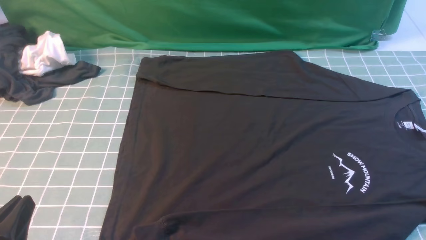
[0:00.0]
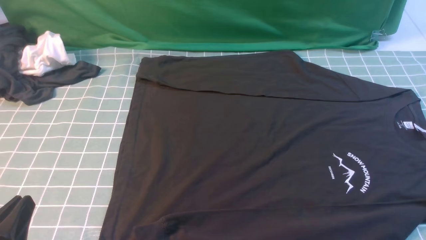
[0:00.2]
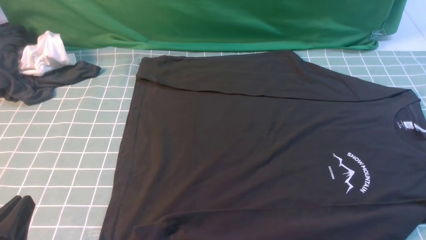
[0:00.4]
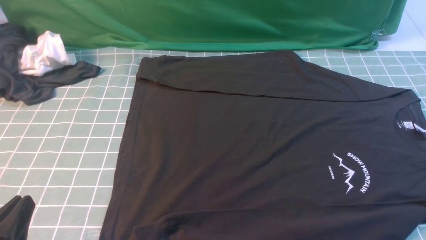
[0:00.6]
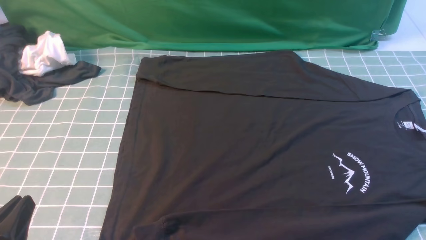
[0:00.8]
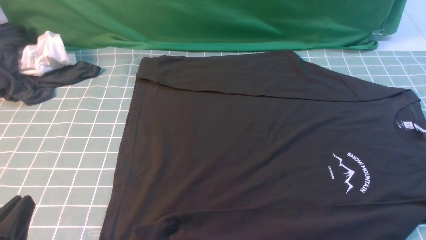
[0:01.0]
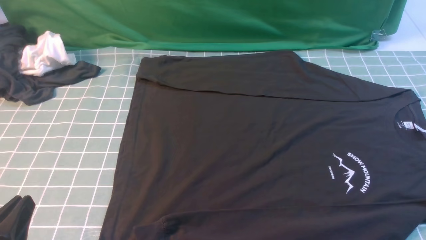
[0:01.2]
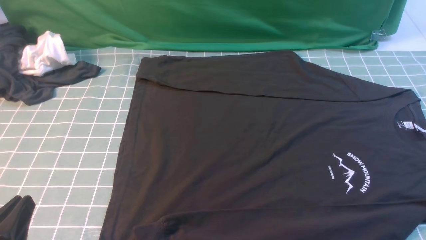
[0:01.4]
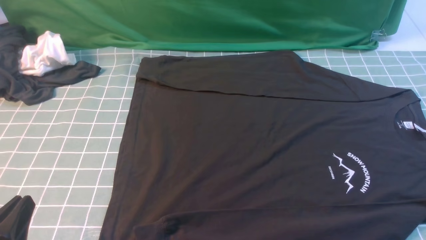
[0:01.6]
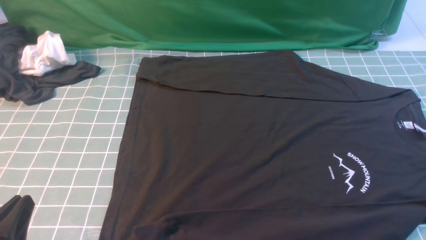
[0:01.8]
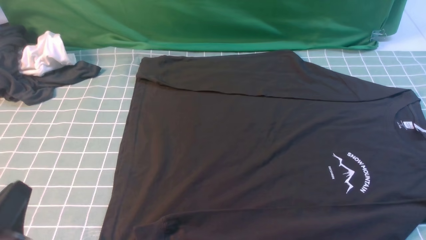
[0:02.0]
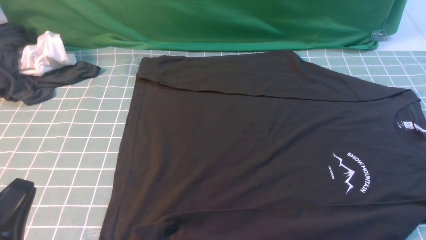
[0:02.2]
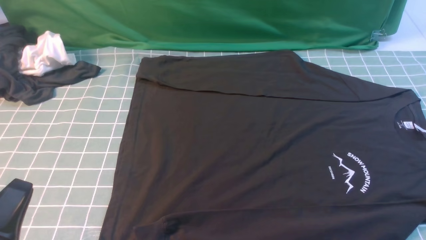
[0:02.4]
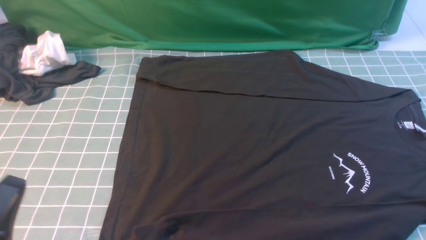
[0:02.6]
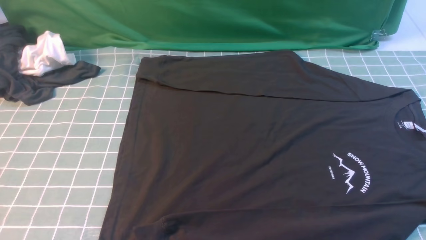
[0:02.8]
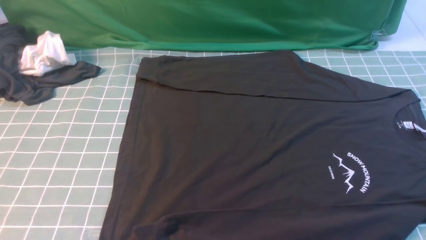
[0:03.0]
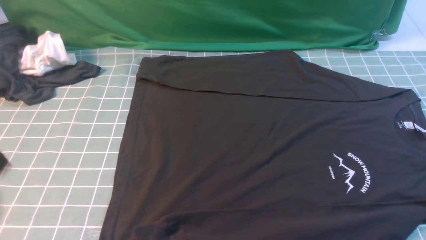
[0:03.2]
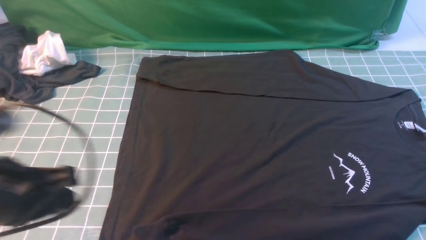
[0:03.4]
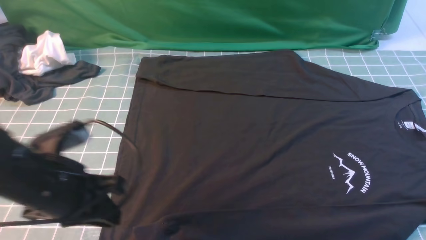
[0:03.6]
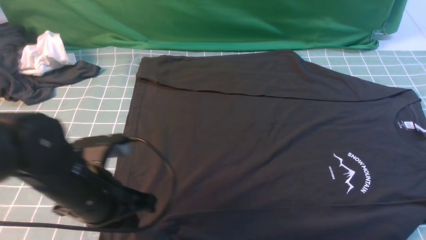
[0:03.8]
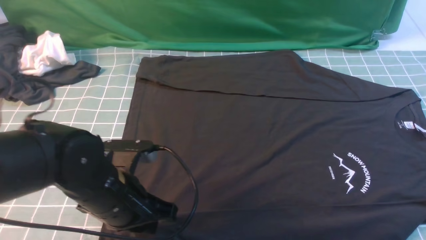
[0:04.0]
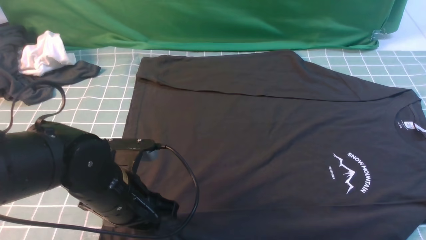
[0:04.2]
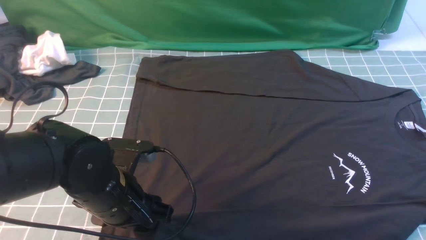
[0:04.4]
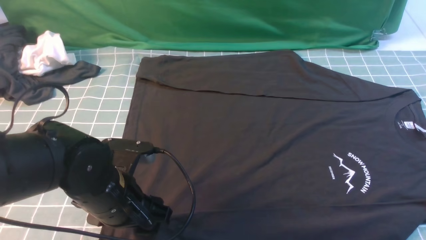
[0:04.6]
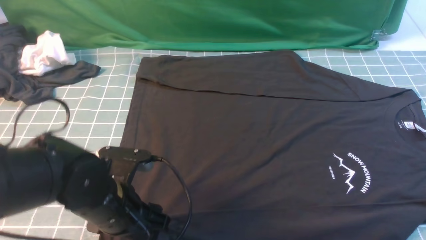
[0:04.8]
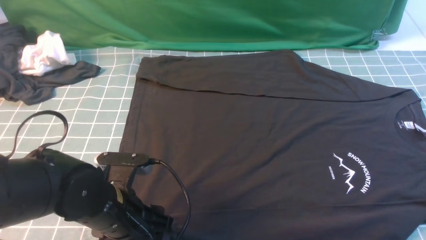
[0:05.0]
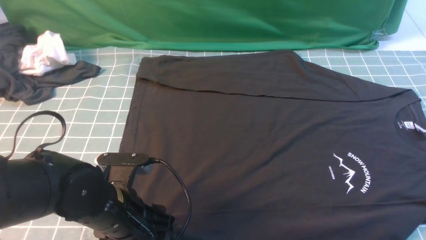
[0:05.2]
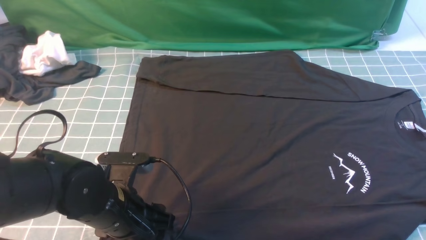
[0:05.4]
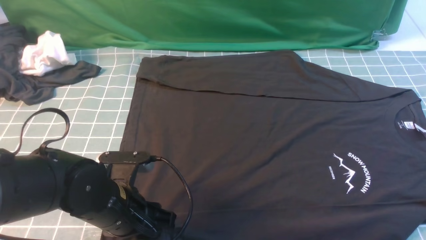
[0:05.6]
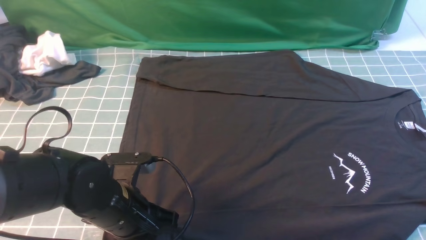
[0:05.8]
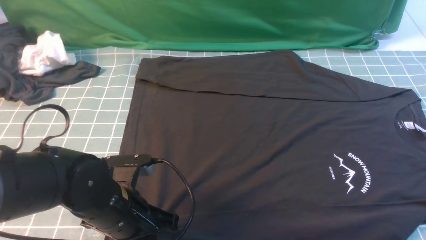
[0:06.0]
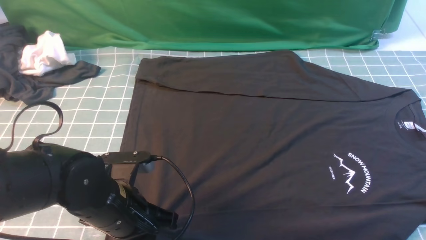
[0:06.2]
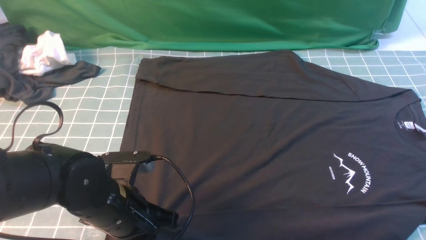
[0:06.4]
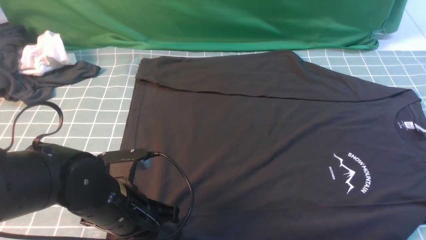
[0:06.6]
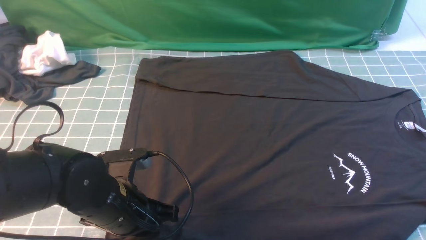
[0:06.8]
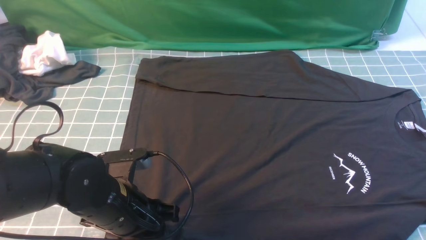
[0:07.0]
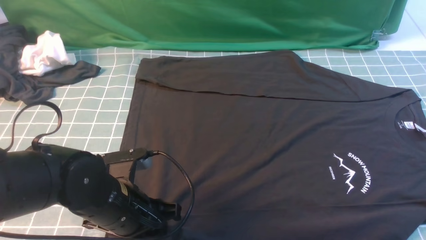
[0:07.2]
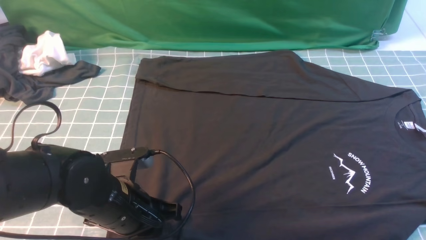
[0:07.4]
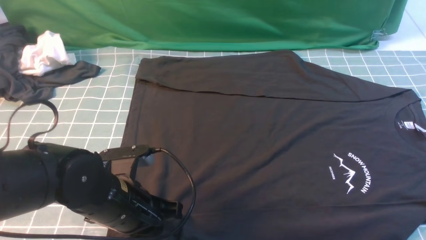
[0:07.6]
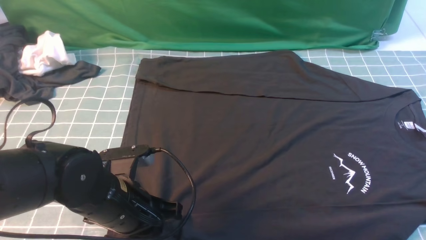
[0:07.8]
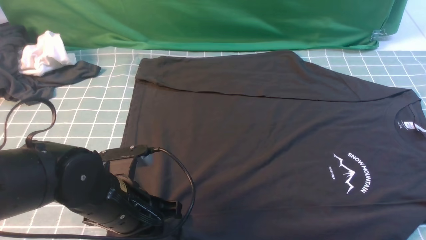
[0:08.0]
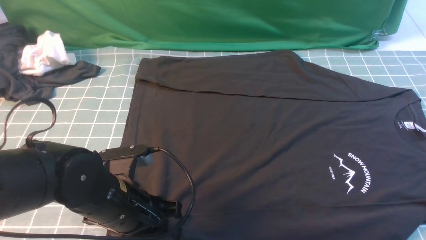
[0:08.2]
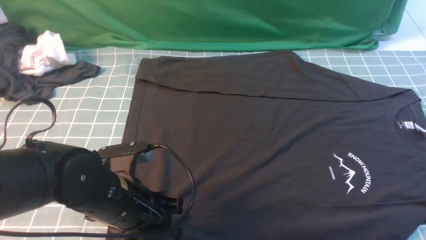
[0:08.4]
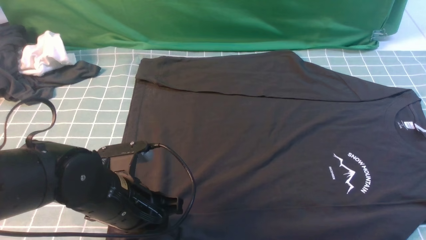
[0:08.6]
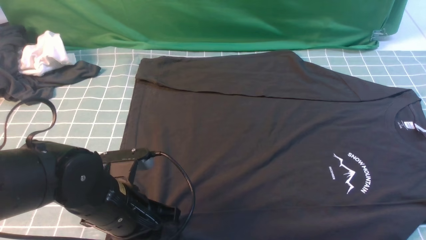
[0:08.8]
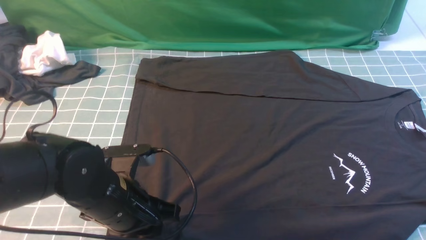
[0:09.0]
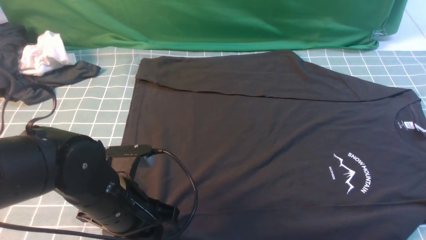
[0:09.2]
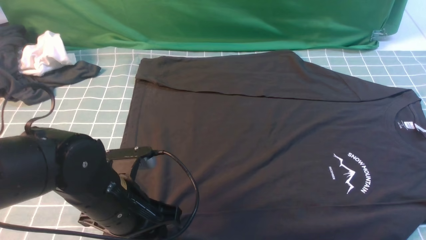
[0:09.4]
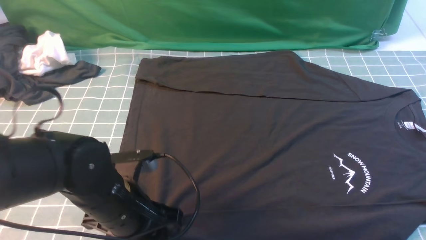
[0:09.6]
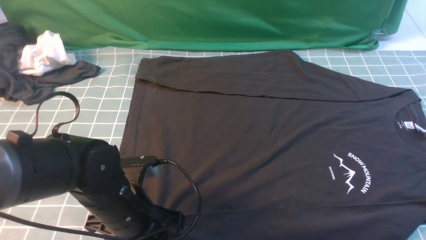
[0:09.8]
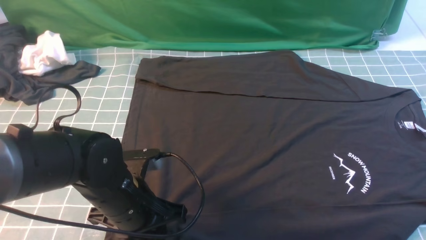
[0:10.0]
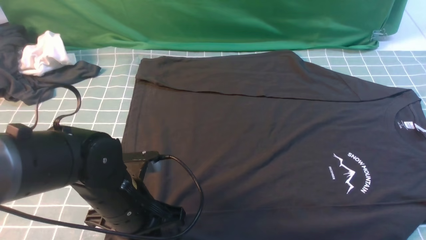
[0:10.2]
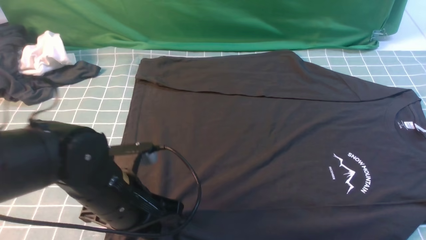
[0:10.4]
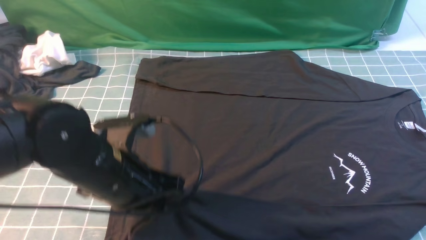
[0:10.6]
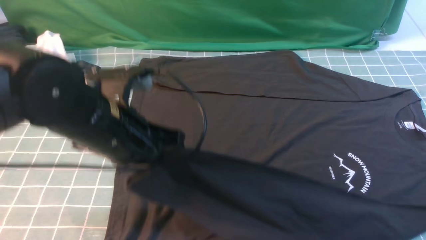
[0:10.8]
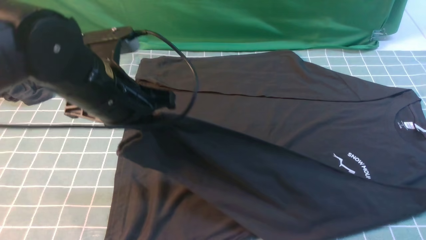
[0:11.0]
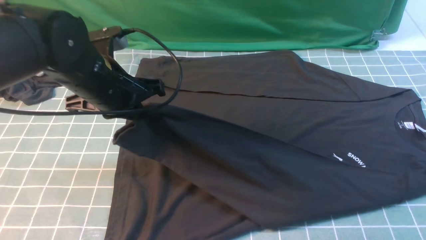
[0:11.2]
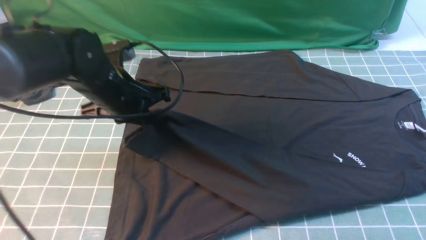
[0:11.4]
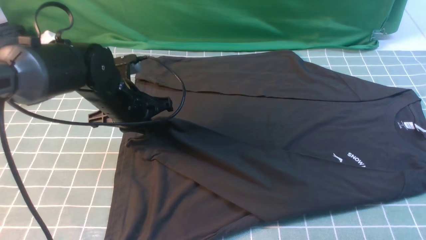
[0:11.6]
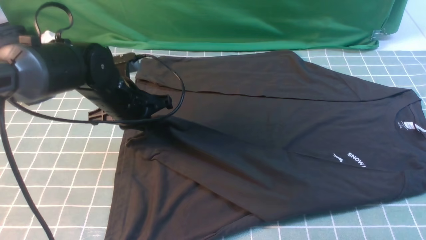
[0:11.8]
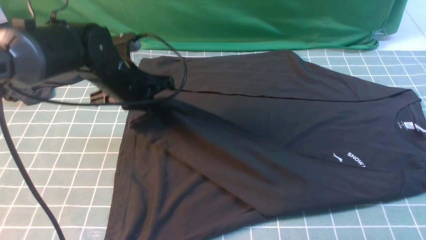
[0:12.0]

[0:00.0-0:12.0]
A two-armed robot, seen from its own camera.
Step, 0:00.0 to 0:10.4: use the left arm to clamp the cuff closest to it.
0:00.0 to 0:01.6: The two grippers keep their place.
0:01.6 to 0:03.0: The left gripper travels upward by about 10 cm.
0:03.0 to 0:04.4: The right gripper travels forward by some 10 cm; the left gripper goes roughly 20 cm forward, downward and to the right, and opens up.
0:04.4 to 0:06.0: The left gripper closes.
0:06.0 to 0:07.6: The left gripper opens, then closes once more.
0:07.6 to 0:09.0: The two grippers keep their place.
0:09.0 to 0:10.4: The left gripper closes up.
0:10.4 to 0:12.0: The left gripper travels forward by some 15 cm.

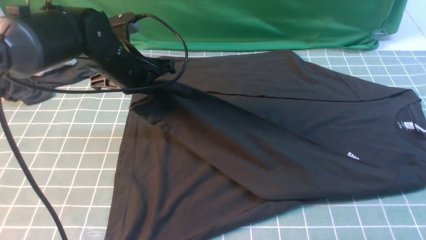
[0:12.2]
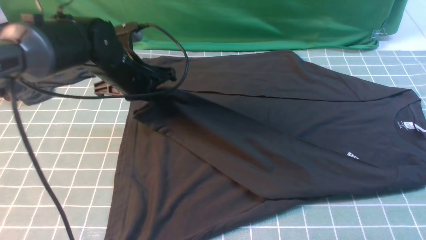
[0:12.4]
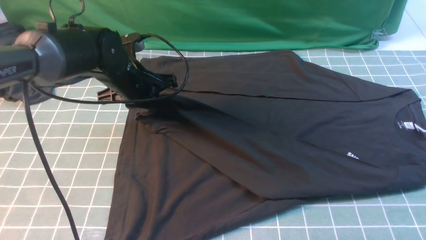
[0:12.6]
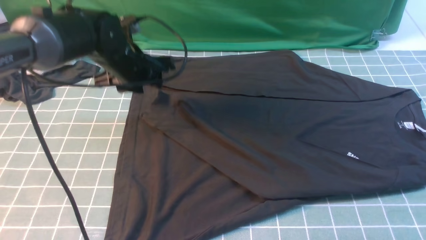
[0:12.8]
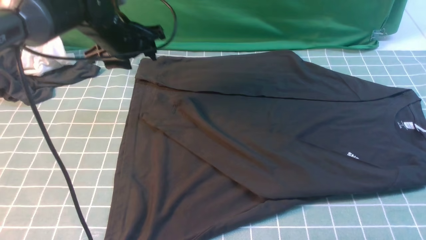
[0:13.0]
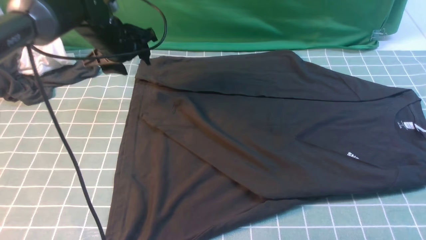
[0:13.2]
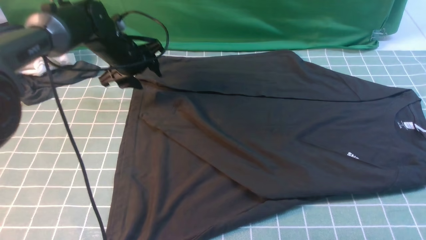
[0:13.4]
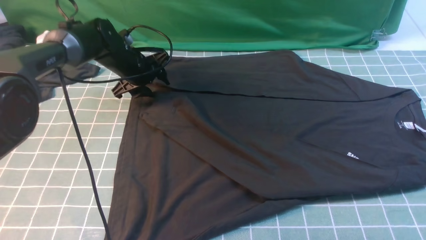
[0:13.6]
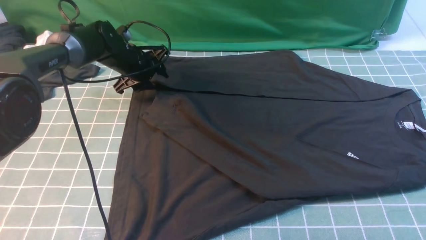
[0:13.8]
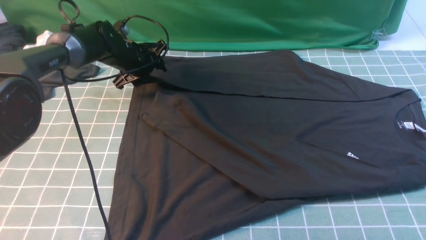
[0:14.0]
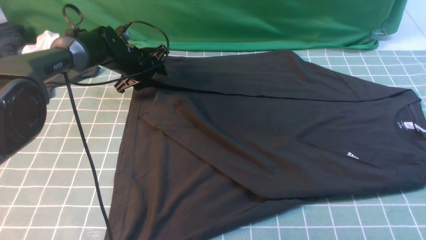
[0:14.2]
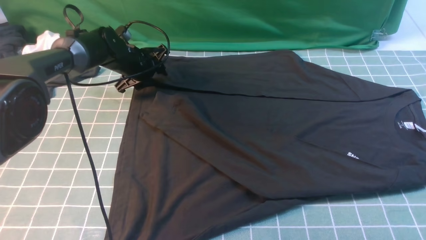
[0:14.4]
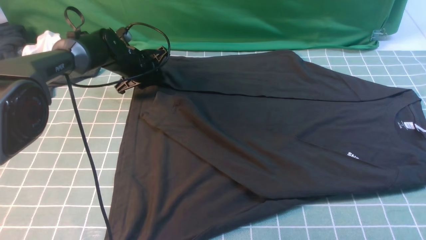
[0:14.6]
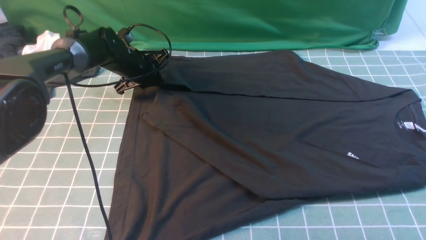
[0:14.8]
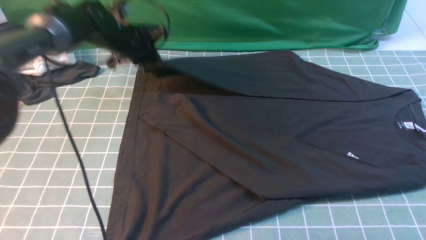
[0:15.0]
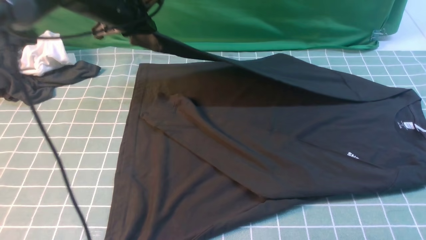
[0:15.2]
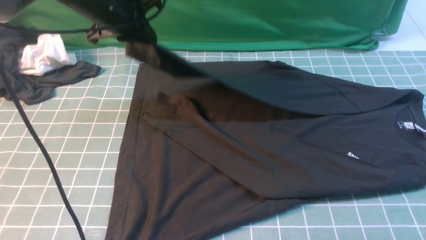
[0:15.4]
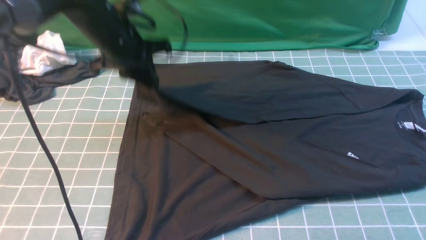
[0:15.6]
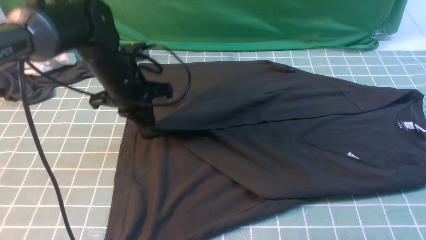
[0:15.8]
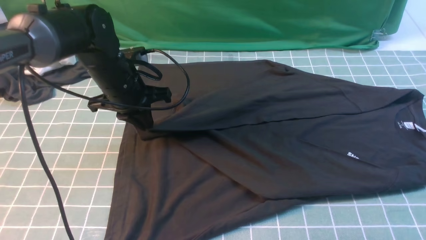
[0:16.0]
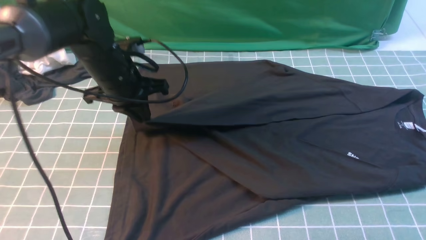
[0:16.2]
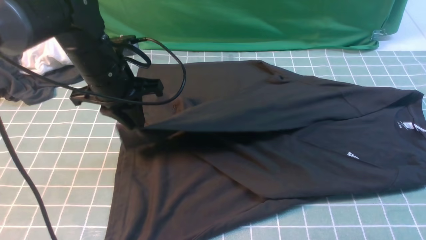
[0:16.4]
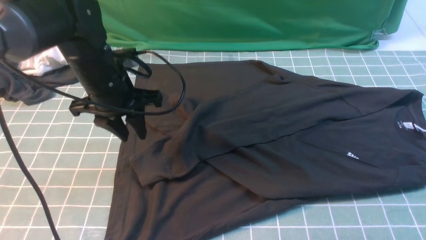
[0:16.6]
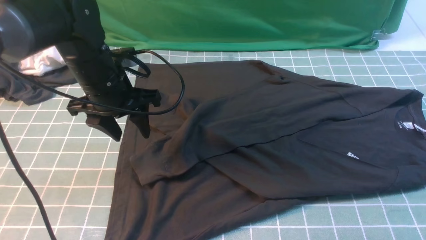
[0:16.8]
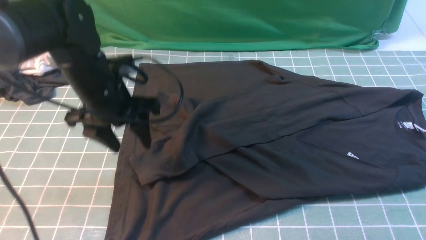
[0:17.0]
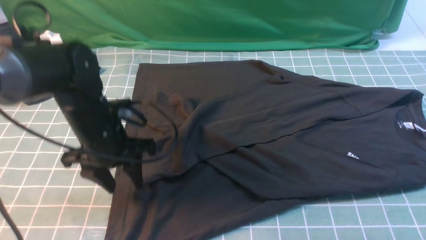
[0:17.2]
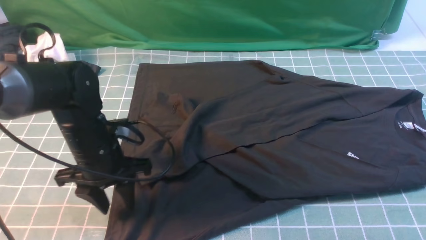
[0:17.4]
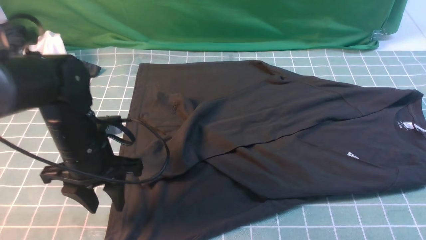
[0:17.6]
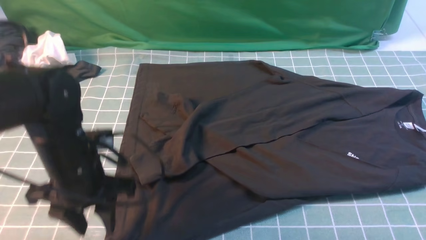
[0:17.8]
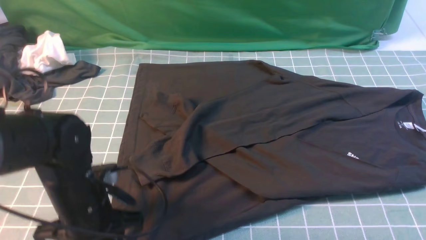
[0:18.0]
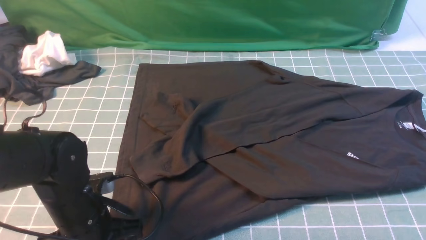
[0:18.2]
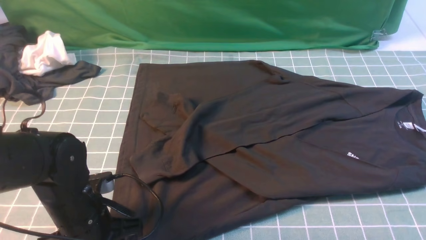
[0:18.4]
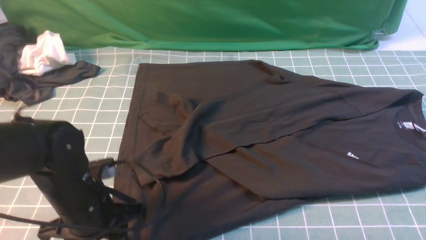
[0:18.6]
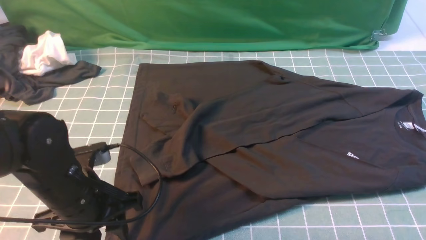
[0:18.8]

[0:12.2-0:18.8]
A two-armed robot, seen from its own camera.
Step, 0:13.0 to 0:14.6: use the left arm to clamp the cuff farthest from it.
Step, 0:15.0 to 0:16.8: use the left arm to drag and drop the cuff onto the cuff closest to the left arm.
0:12.2 to 0:13.8: The left gripper moves forward and downward, about 15 cm, and opens up.
0:13.8 to 0:15.4: The left gripper shifts roughly 15 cm upward and backward, and closes.
0:15.4 to 0:17.2: The left gripper moves backward and downward, approximately 15 cm, and opens.
0:17.2 to 0:18.8: The left gripper is displaced backward by some 10 cm.
